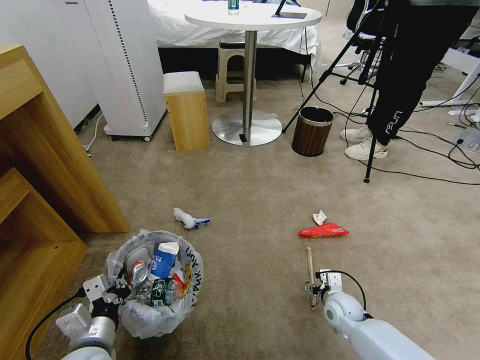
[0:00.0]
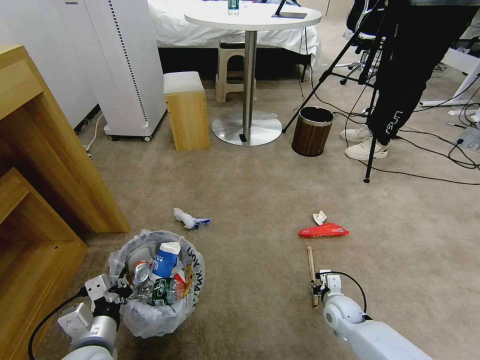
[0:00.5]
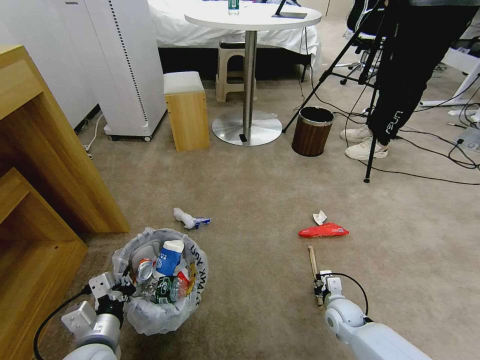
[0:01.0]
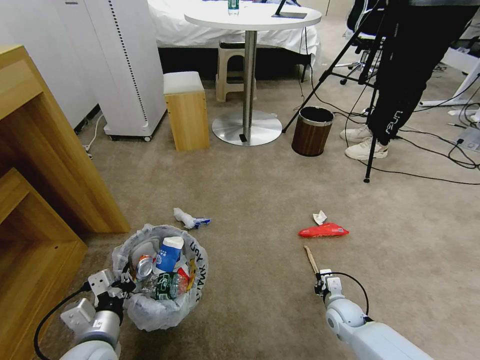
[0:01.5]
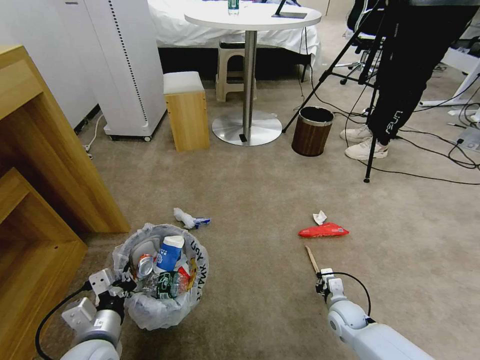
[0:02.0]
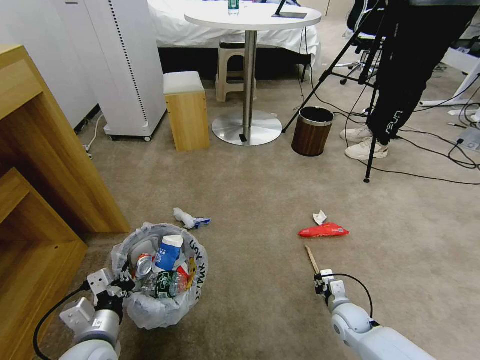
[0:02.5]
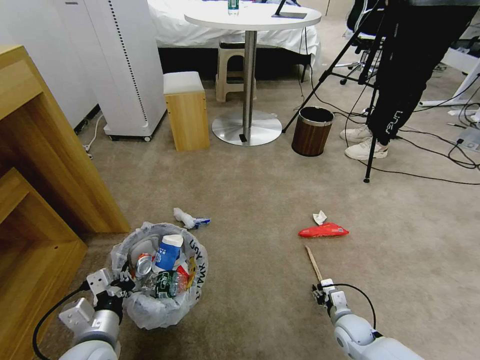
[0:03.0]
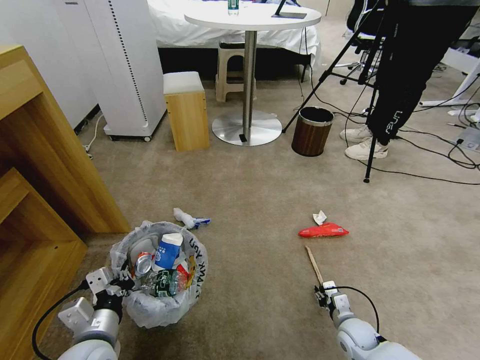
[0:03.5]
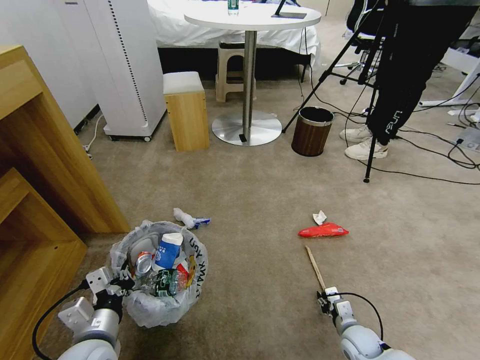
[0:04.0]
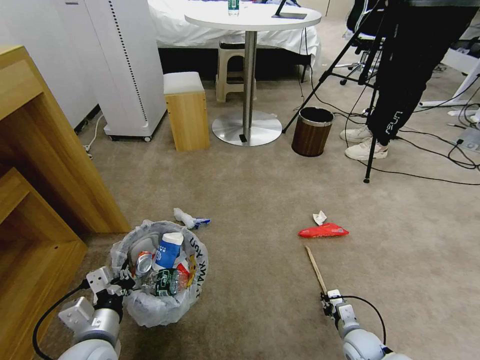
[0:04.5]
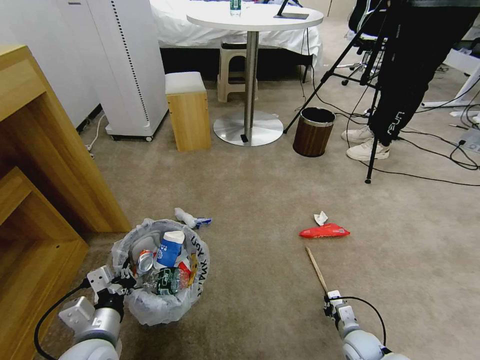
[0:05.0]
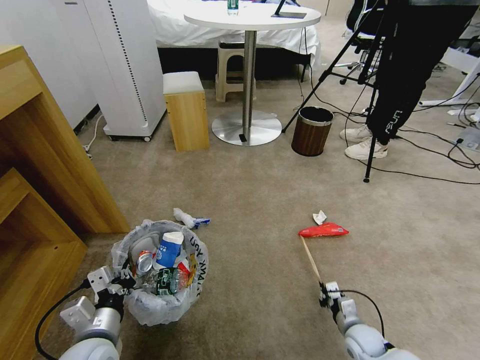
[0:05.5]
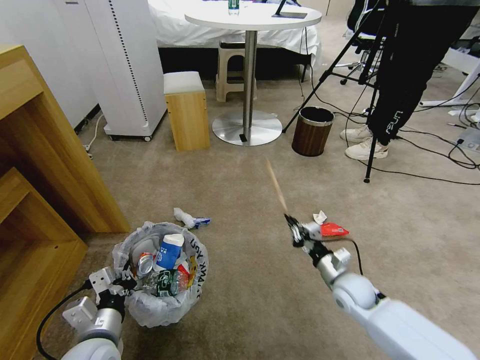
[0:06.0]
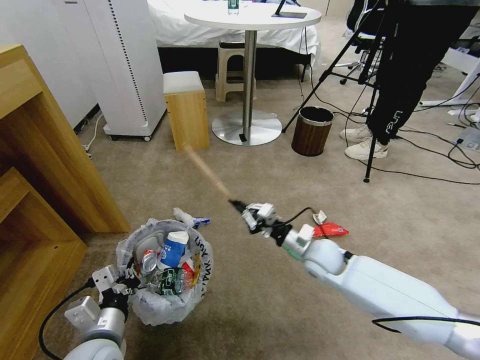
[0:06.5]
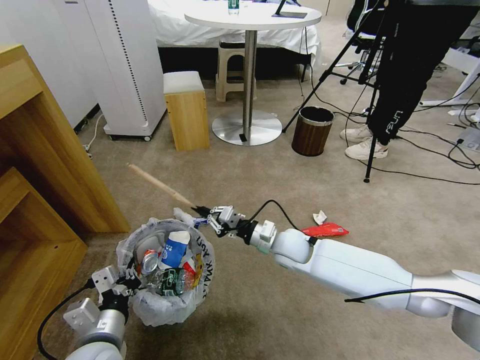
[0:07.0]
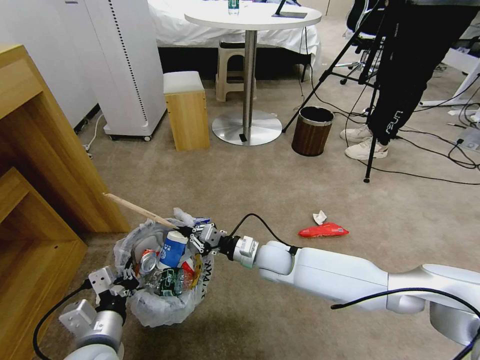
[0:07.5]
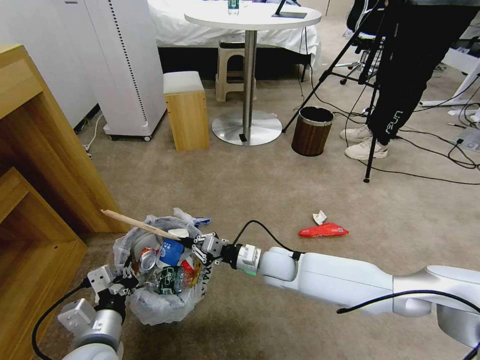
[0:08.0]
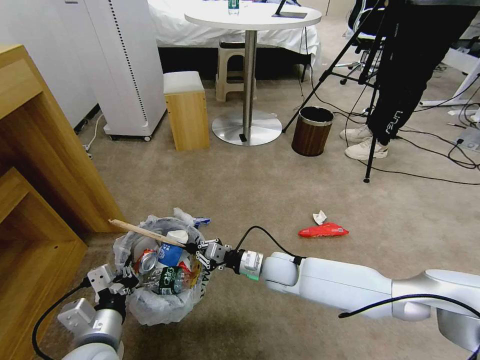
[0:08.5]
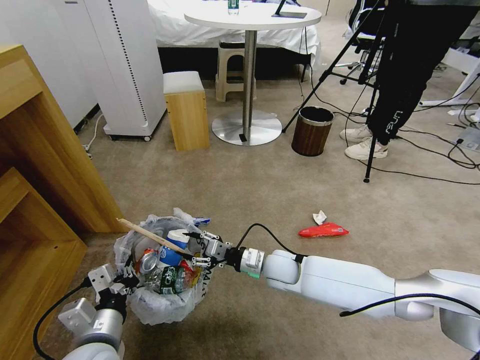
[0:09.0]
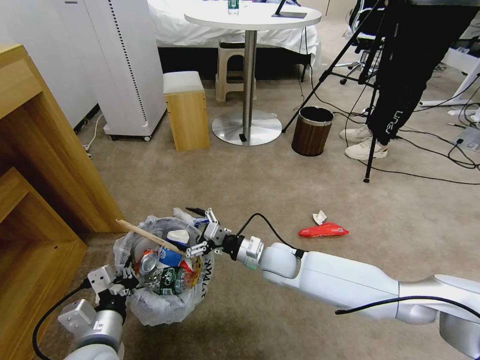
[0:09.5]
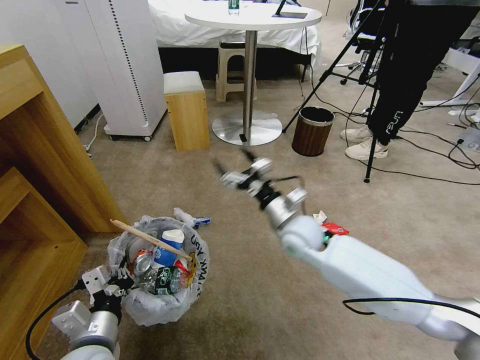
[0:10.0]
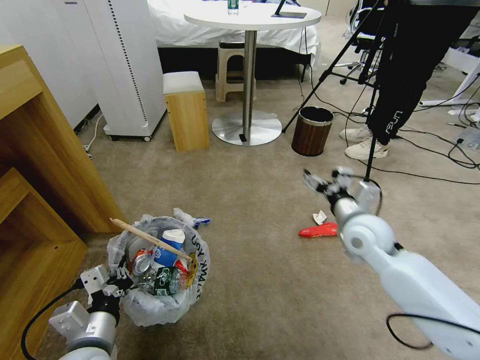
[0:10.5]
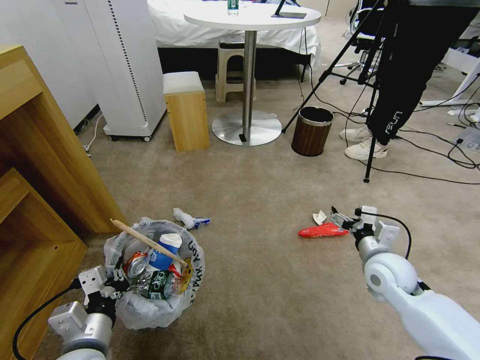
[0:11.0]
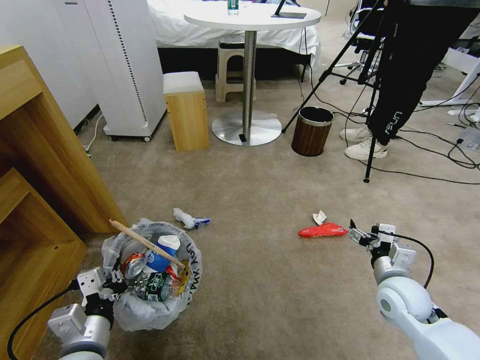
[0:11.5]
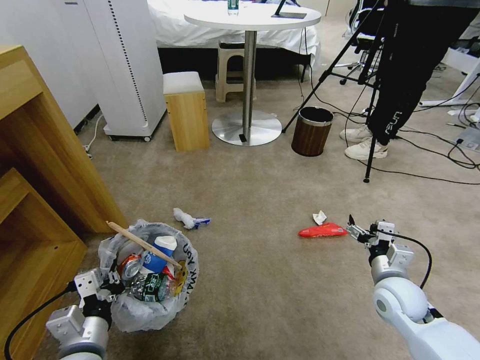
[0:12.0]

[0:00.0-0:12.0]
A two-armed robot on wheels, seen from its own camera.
Task of the whole recording: Pick up the trash bin and place the garbage on the floor into it.
0:00.0 to 0:02.0: The right gripper closes.
0:02.0 to 0:04.0: The right gripper moves backward, approximately 5 cm, and opens.
0:04.0 to 0:06.0: The right gripper heads upward and forward, covering approximately 15 cm, and closes.
0:06.0 to 0:08.0: The right gripper shifts approximately 20 cm to the left.
0:08.0 to 0:10.0: The right gripper moves upward, about 10 cm, and opens its fingers.
0:10.0 to 0:12.0: The right gripper moves to the right and backward, about 25 cm.

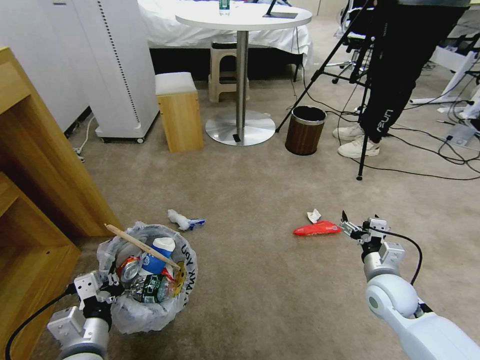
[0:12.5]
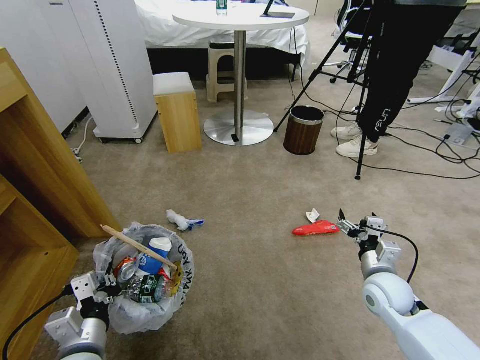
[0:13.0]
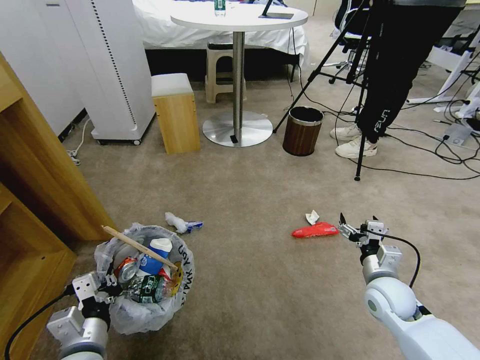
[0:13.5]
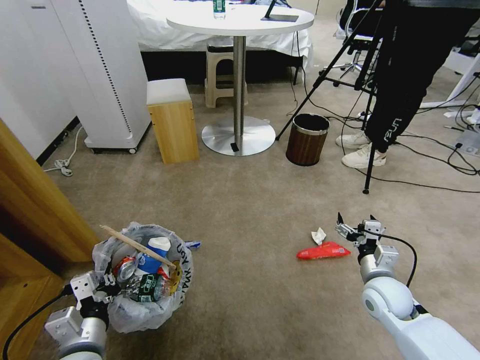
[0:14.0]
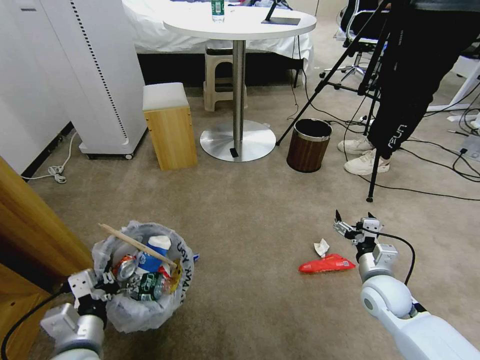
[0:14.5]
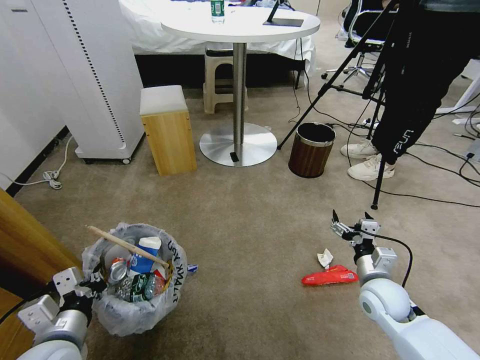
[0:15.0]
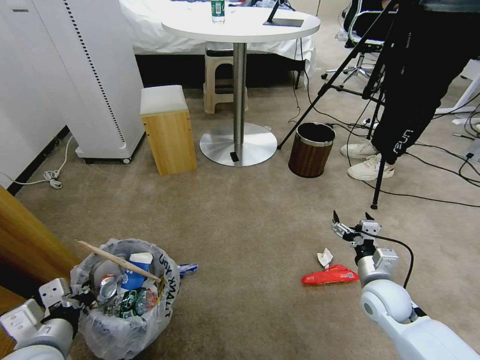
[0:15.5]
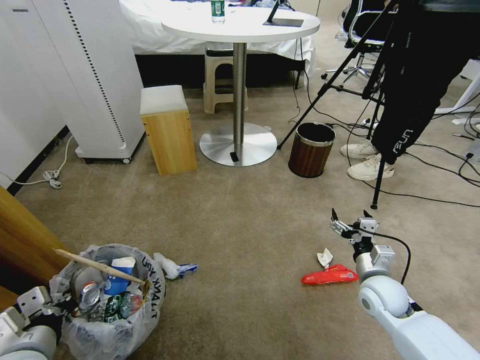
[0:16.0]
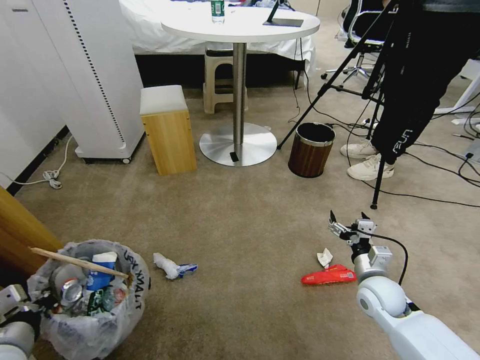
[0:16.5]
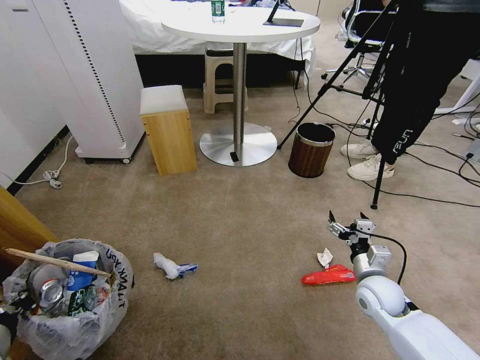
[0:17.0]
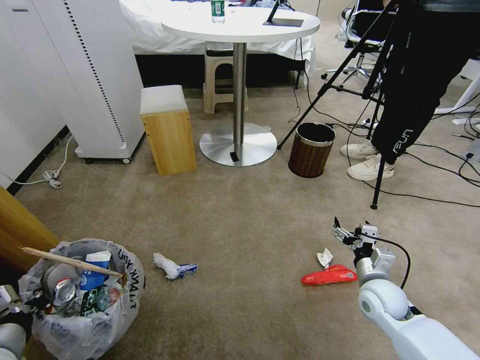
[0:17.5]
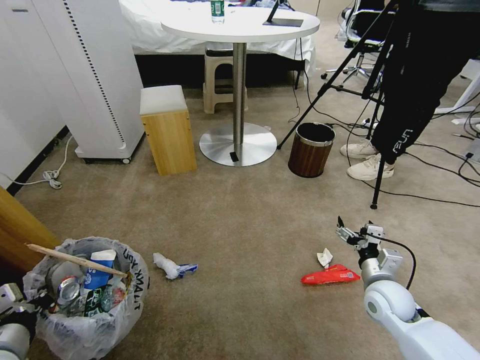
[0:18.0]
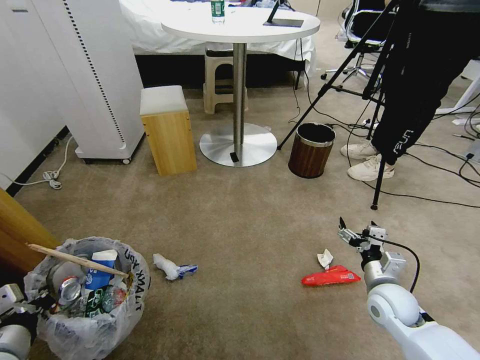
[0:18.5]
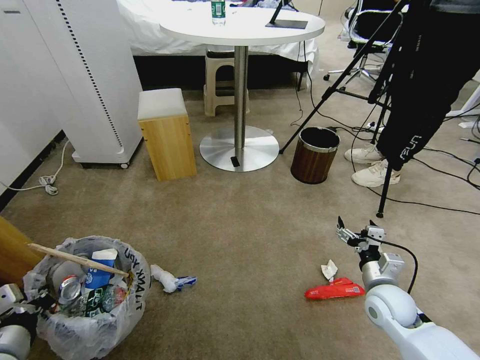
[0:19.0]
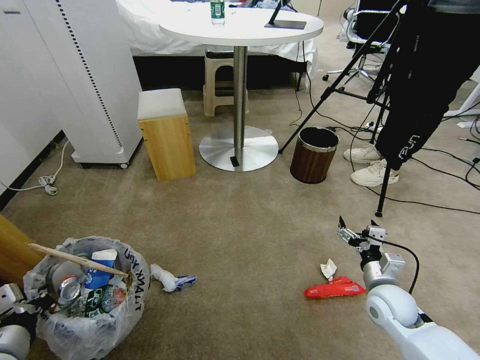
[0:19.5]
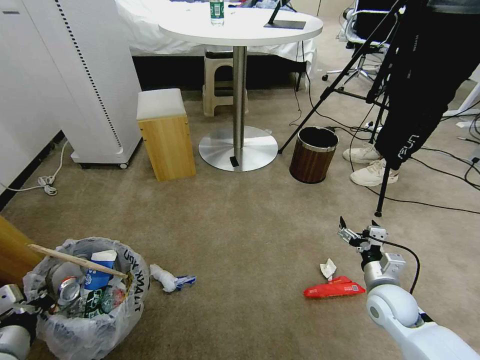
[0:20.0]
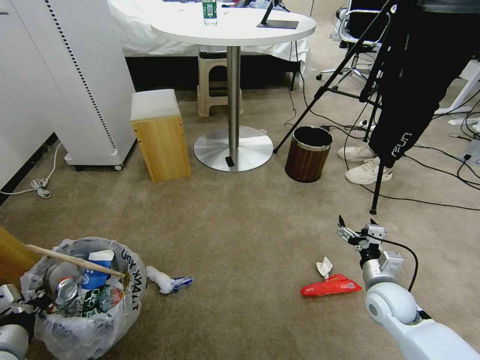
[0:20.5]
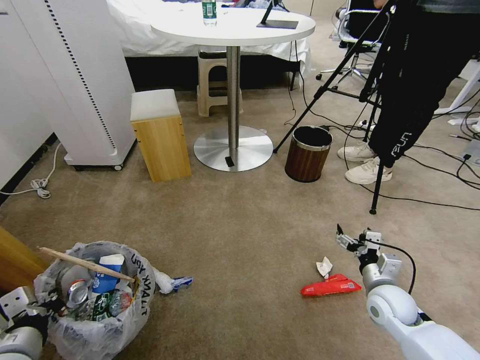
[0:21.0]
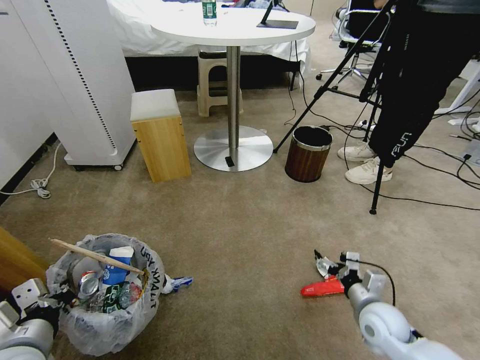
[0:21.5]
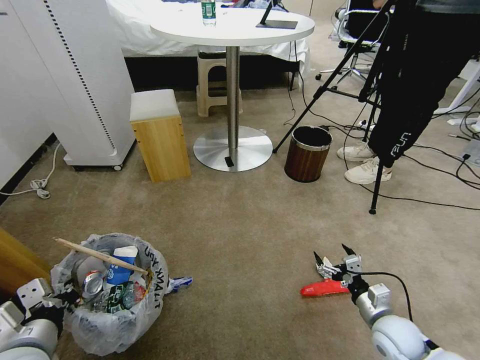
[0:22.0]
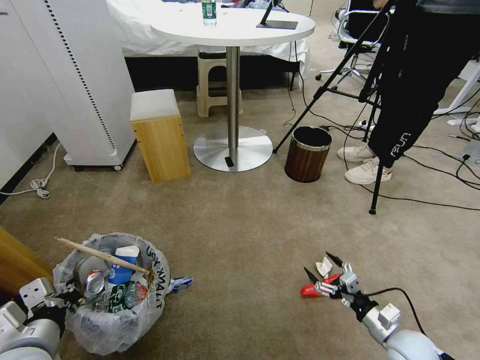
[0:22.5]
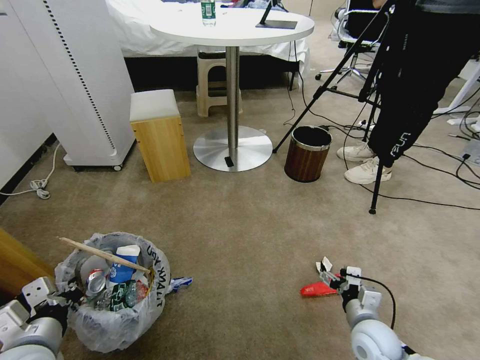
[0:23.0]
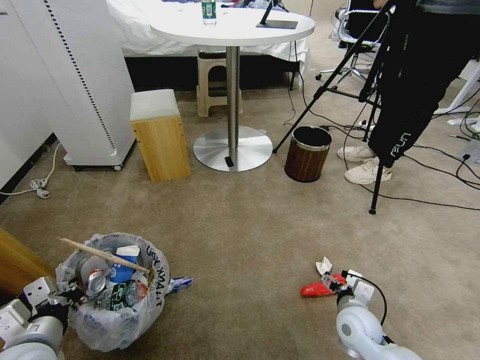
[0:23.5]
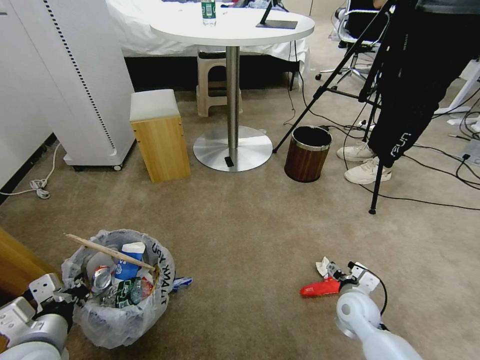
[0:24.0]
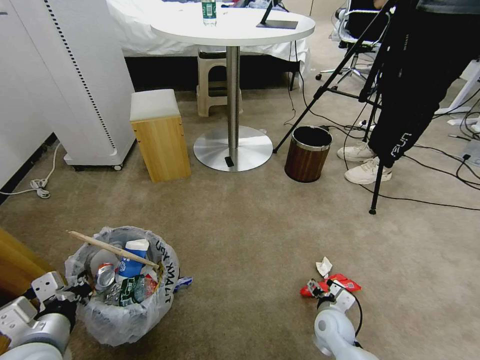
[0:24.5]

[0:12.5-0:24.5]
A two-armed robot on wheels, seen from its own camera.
Task of the whole recording: Pick up the trash bin and place the garbage on the floor into it.
0:14.5 to 0:16.5: The left gripper moves to the left and upward, approximately 10 cm.
0:16.5 to 0:18.5: The grippers stay close to where they were, moving slightly.
0:18.5 to 0:20.5: The two grippers keep their place.
0:20.5 to 0:22.5: The right gripper shifts approximately 10 cm backward and downward.
0:22.5 to 0:24.5: The right gripper travels to the left, forward and downward by some 15 cm.

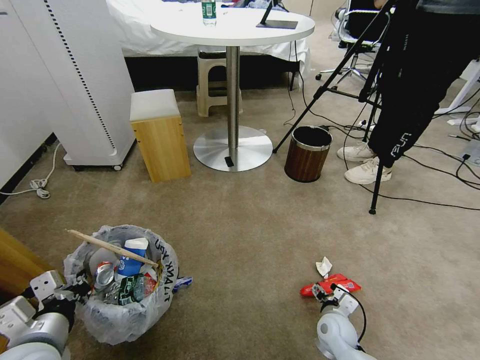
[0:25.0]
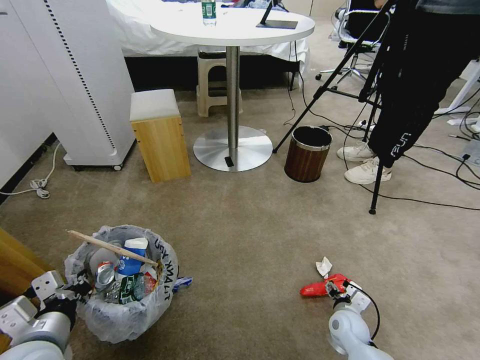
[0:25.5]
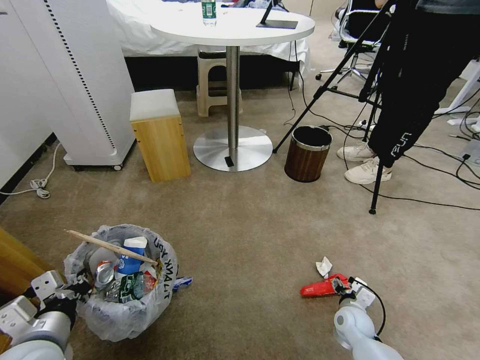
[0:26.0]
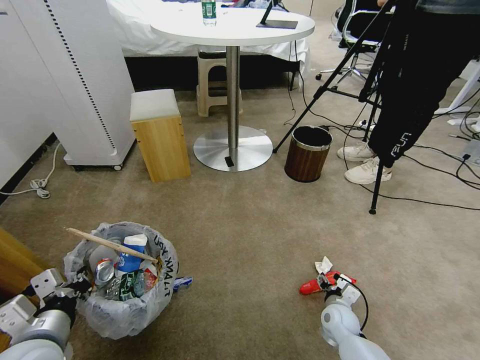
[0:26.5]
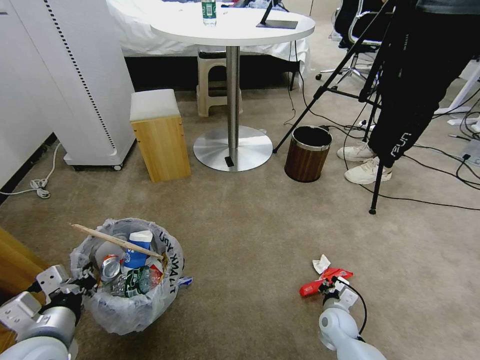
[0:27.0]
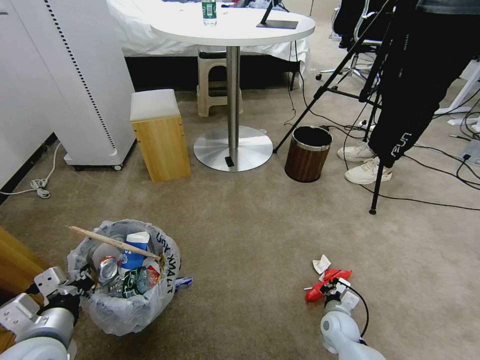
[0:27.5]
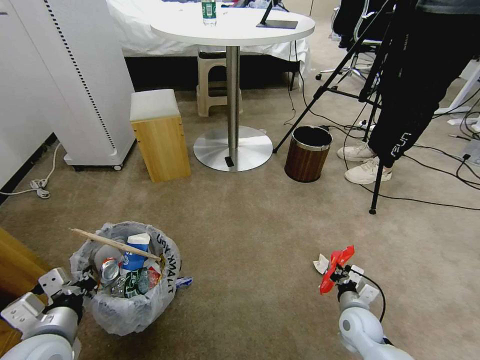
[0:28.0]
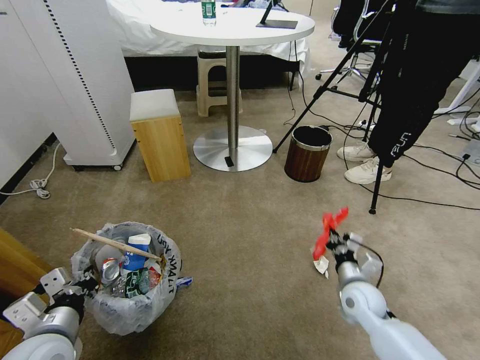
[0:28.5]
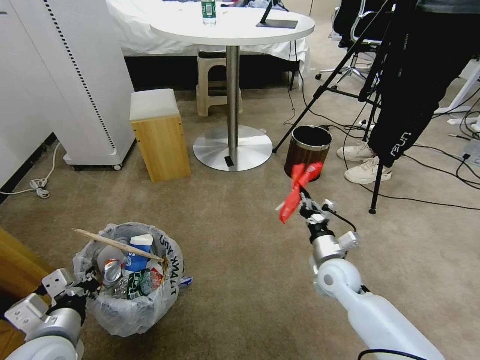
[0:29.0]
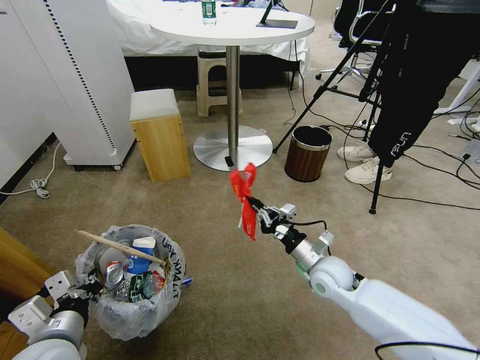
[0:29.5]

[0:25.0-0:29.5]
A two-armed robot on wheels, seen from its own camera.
Task of the whole recording: Pick up the trash bin and place the garbage on the floor into it.
0:25.0 to 0:27.0: The right gripper closes its fingers.
0:27.0 to 0:29.5: The right gripper moves upward, some 20 cm.
